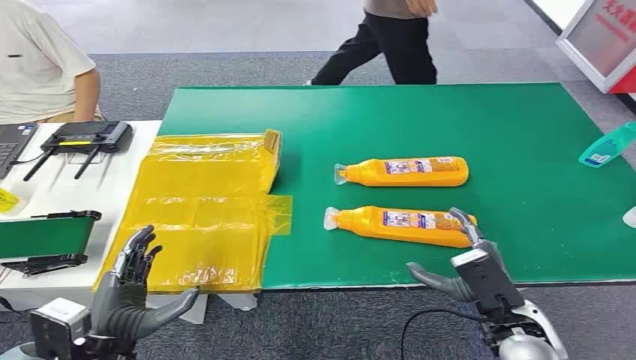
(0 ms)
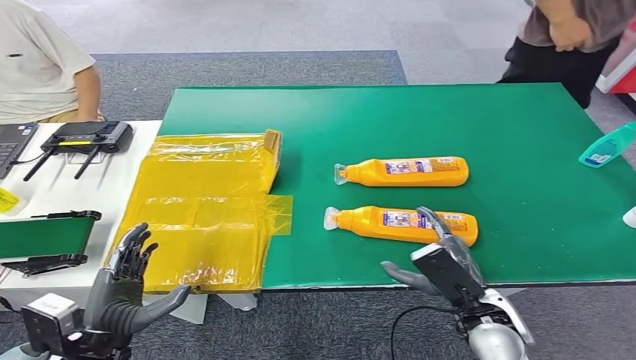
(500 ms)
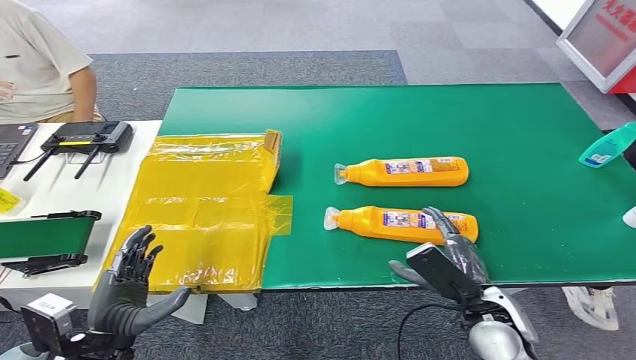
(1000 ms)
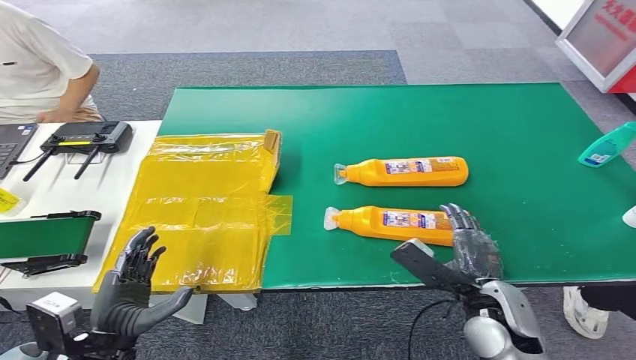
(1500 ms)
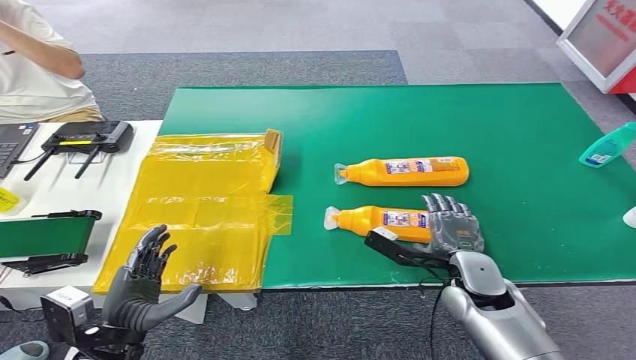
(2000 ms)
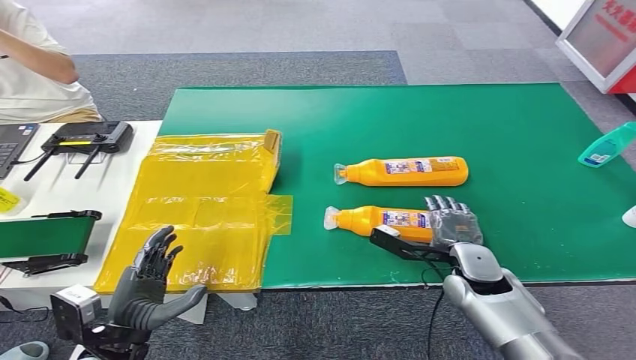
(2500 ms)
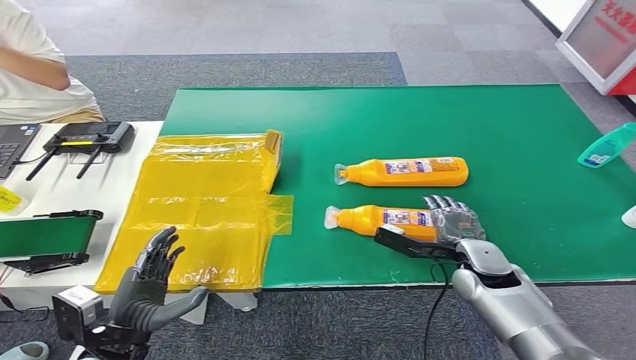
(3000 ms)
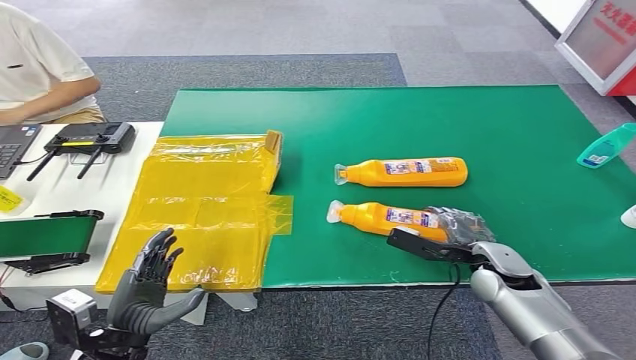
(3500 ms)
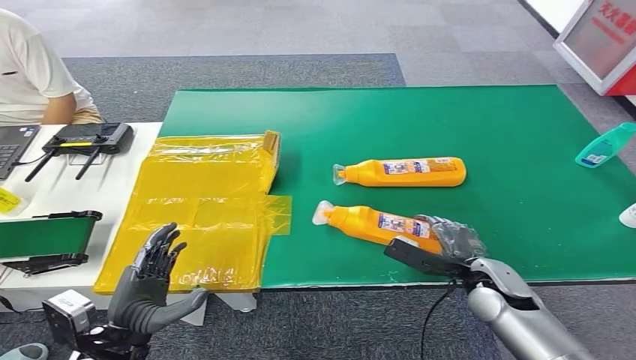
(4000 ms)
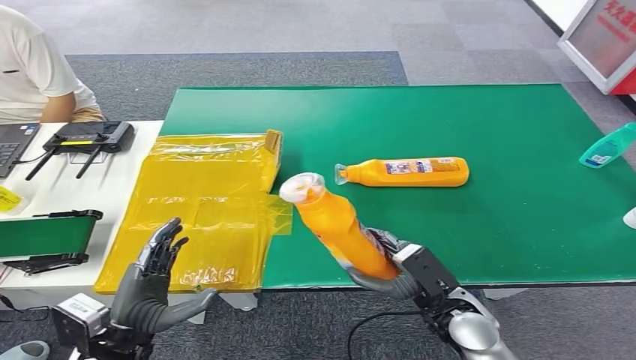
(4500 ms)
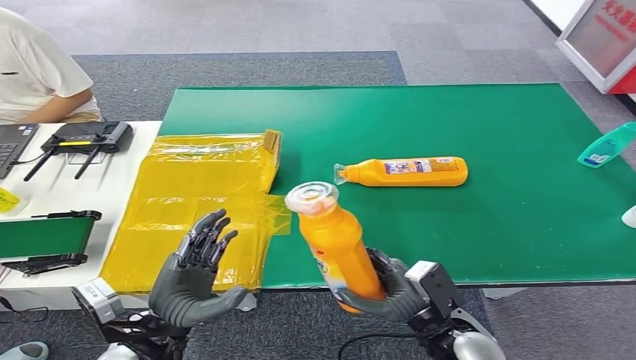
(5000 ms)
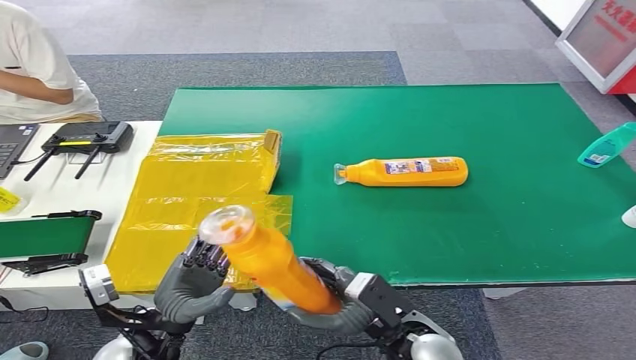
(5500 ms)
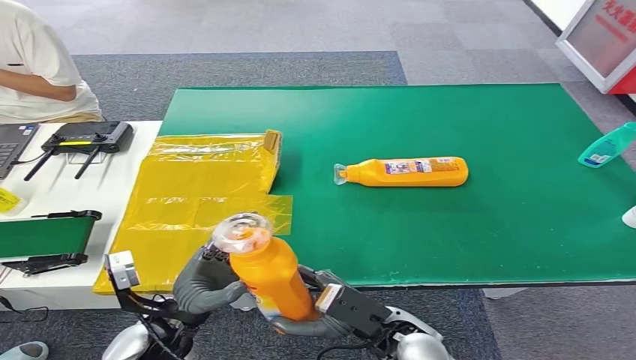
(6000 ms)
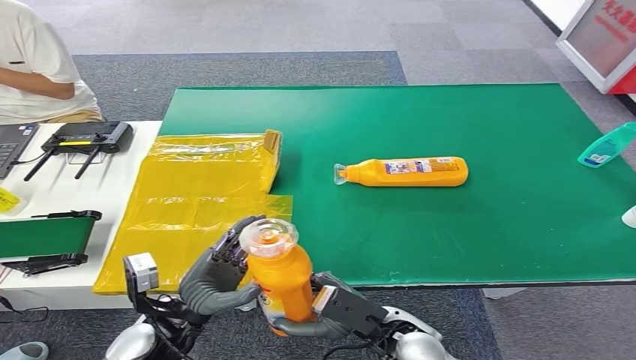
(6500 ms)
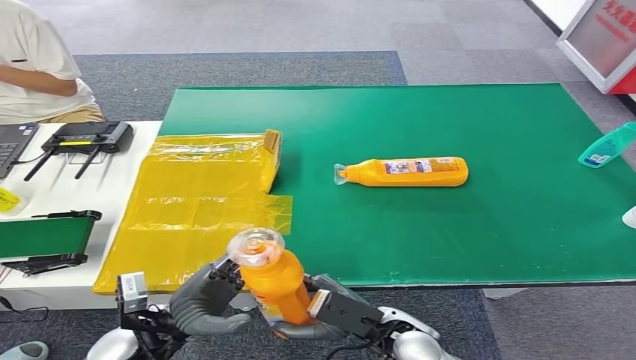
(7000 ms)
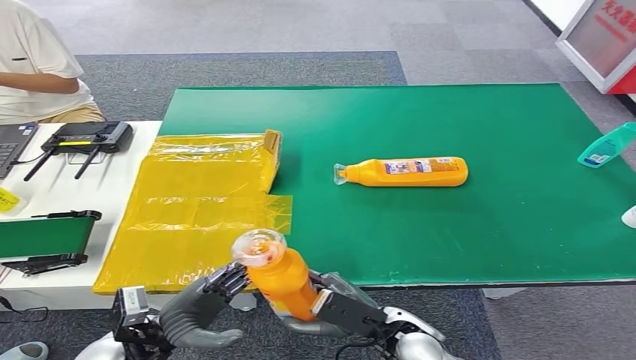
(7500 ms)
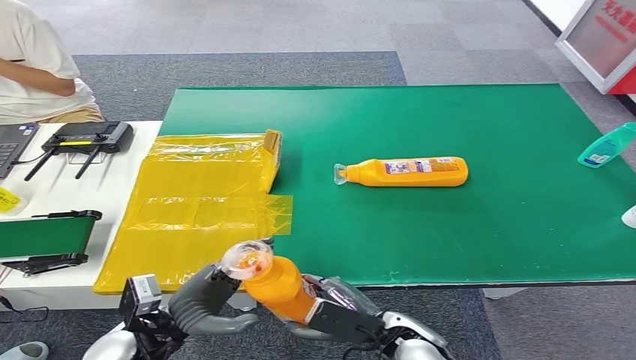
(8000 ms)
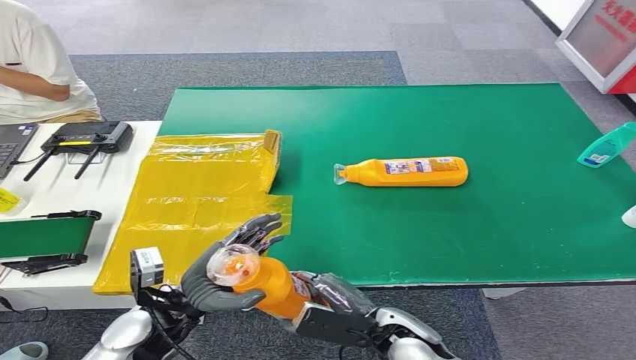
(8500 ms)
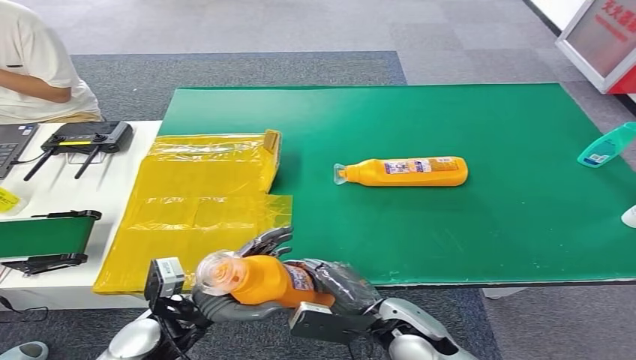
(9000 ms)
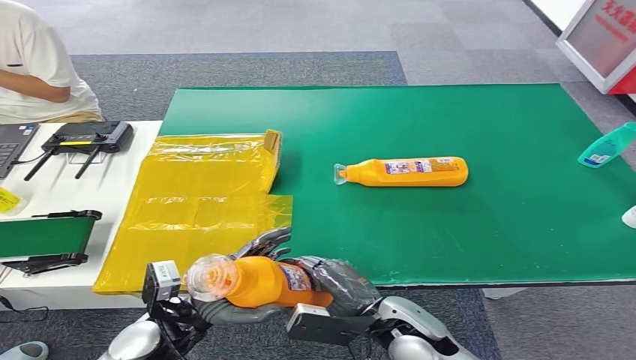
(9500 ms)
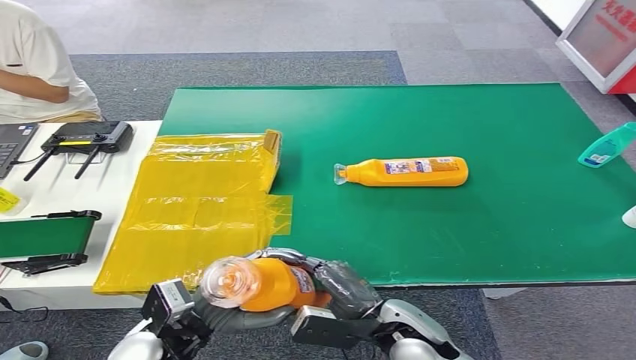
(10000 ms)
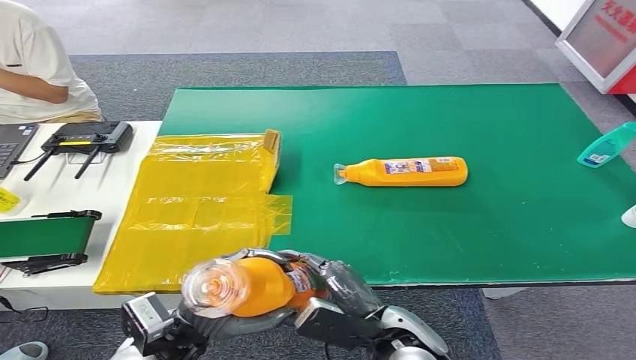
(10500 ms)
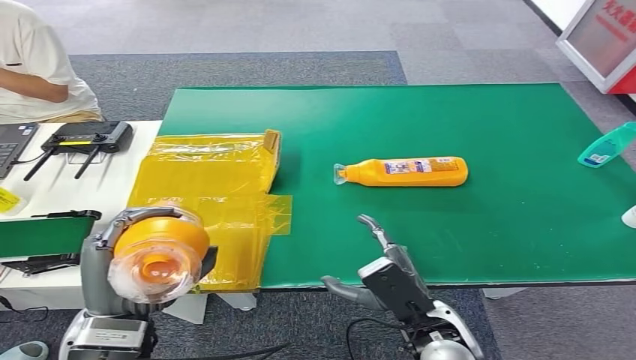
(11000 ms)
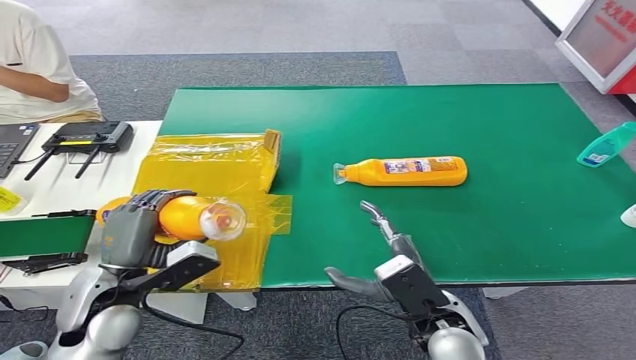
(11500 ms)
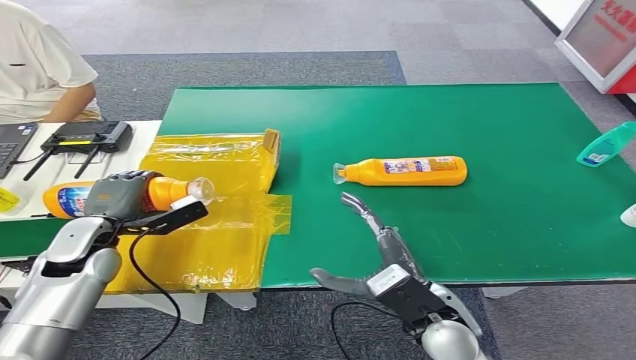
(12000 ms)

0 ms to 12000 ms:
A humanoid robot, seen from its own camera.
Step, 0 ms to 5000 ms: Pick up the bottle from the table.

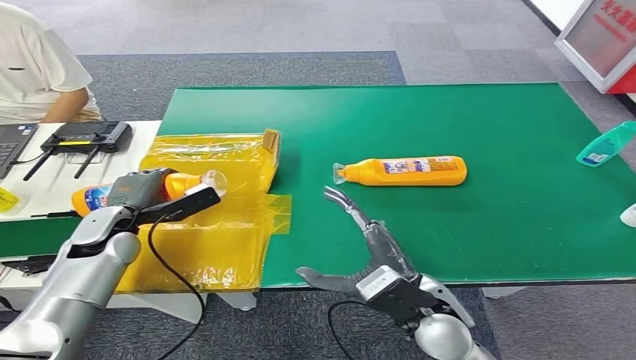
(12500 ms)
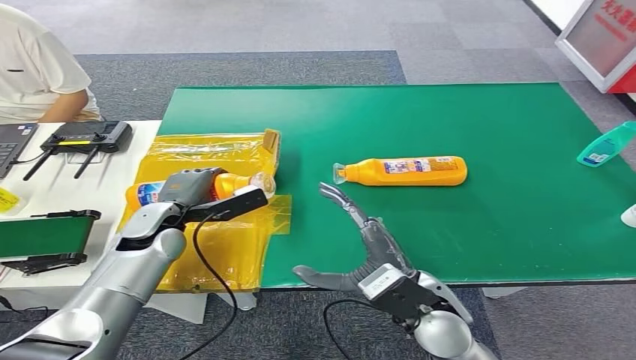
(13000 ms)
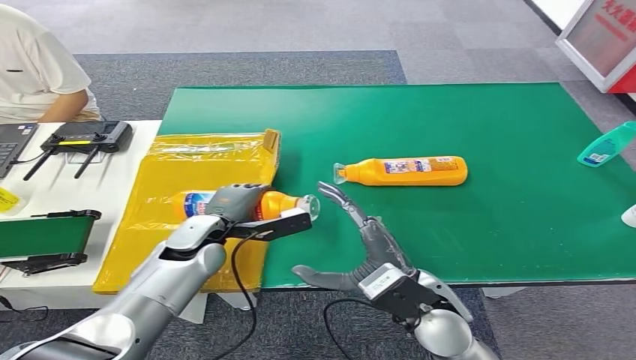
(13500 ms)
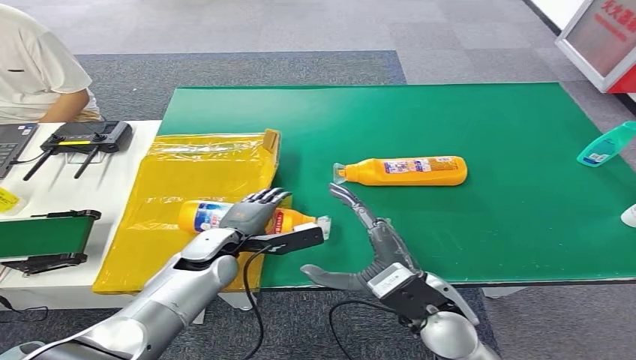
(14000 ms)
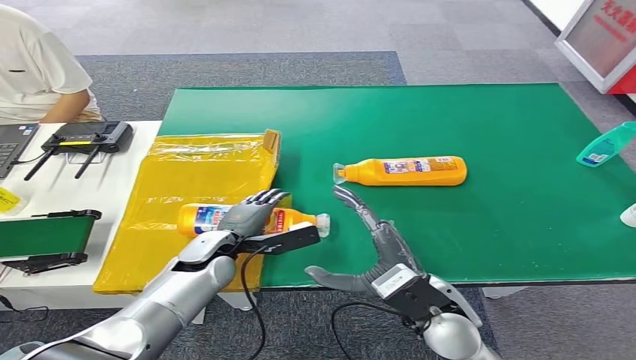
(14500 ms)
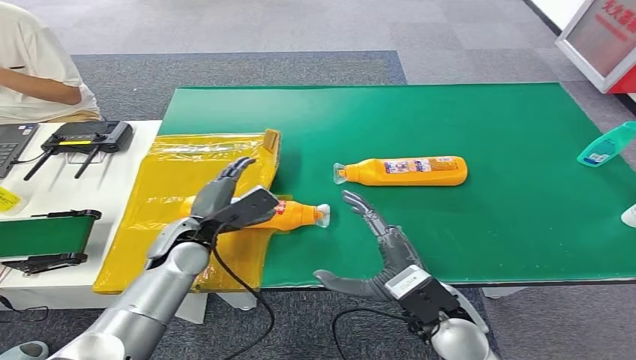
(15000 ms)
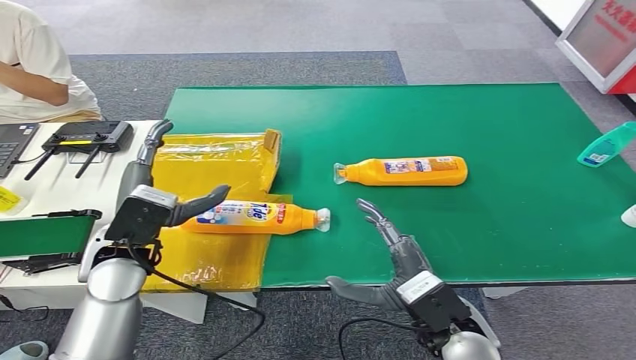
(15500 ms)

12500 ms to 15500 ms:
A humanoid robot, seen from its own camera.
Step, 12500 ms to 15500 ms: Turn the bottle to the front side.
12500 ms to 14000 ms: The left hand heads to the right, covering roughly 15 cm.
14000 ms to 15500 ms: The left hand is displaced upward, to the left and backward by roughly 15 cm.
